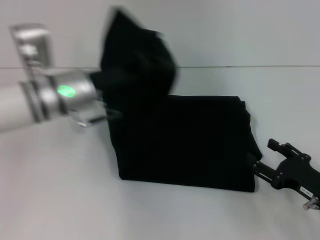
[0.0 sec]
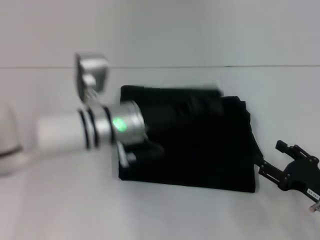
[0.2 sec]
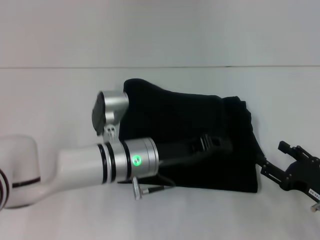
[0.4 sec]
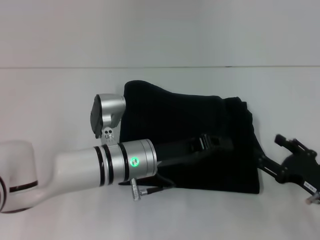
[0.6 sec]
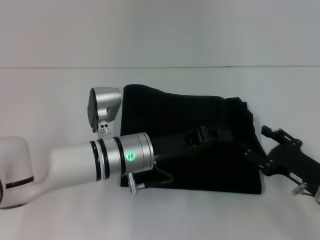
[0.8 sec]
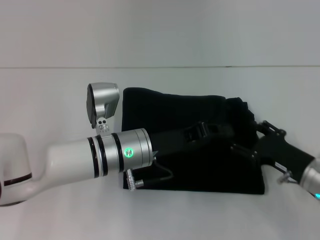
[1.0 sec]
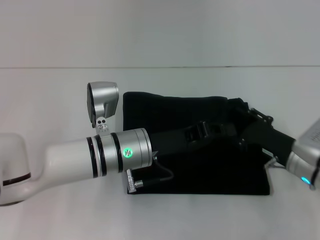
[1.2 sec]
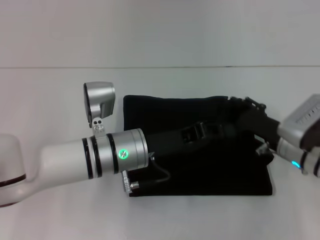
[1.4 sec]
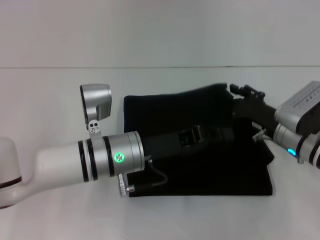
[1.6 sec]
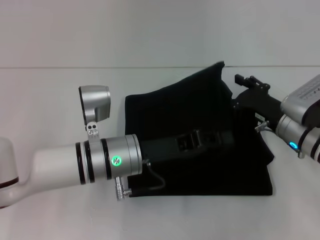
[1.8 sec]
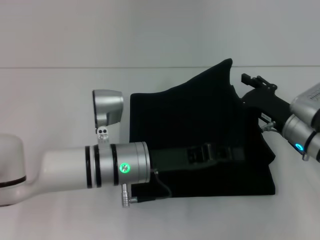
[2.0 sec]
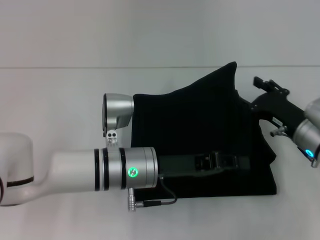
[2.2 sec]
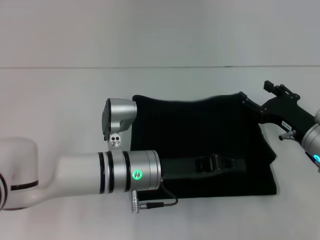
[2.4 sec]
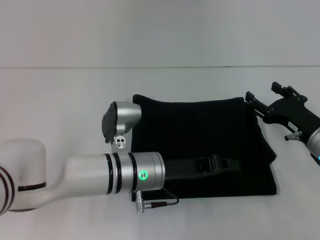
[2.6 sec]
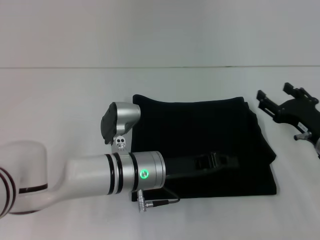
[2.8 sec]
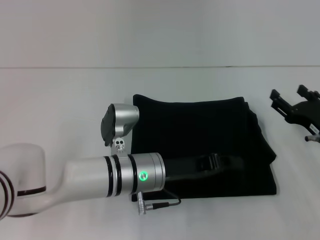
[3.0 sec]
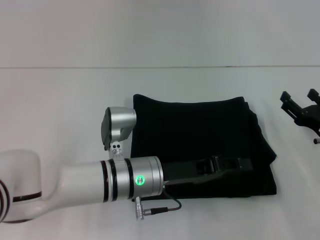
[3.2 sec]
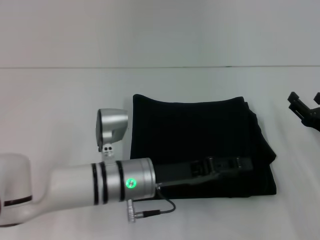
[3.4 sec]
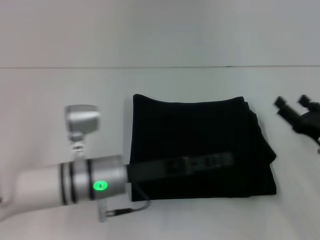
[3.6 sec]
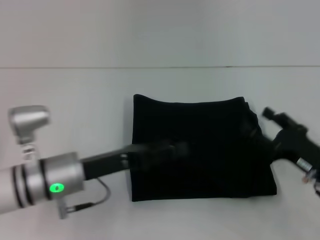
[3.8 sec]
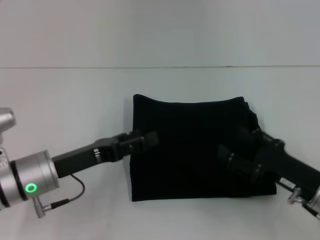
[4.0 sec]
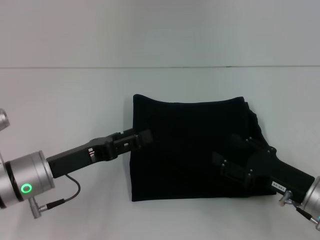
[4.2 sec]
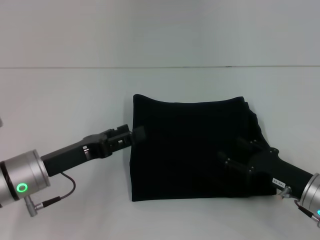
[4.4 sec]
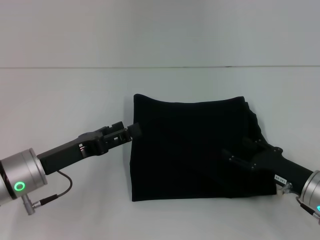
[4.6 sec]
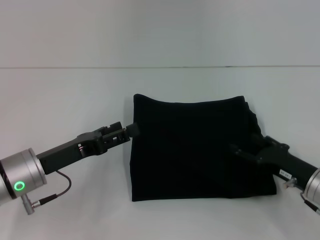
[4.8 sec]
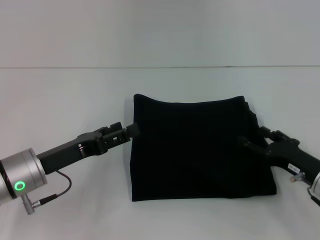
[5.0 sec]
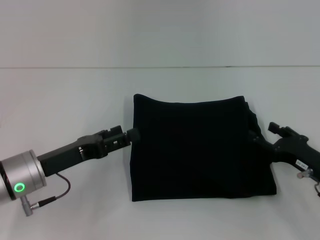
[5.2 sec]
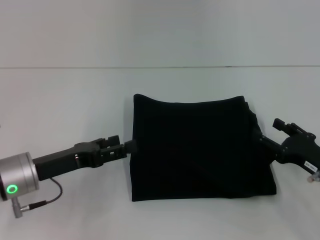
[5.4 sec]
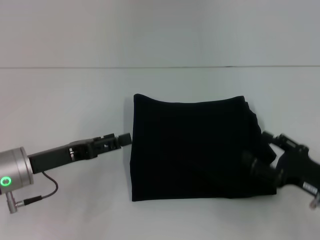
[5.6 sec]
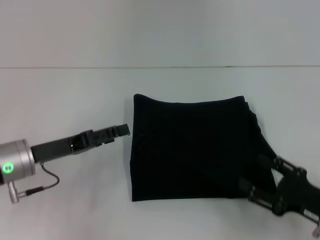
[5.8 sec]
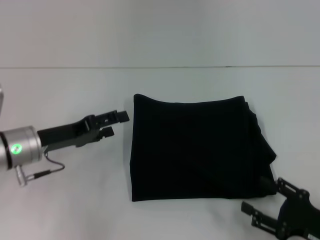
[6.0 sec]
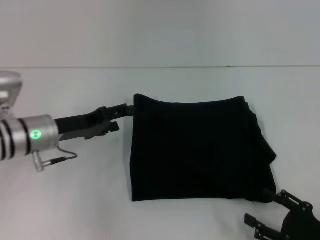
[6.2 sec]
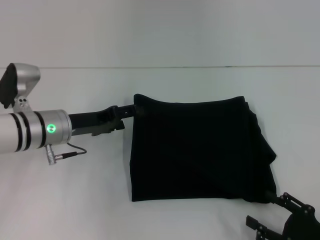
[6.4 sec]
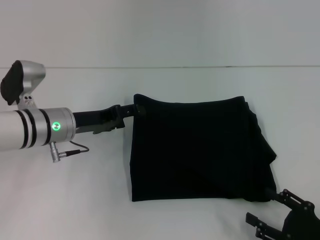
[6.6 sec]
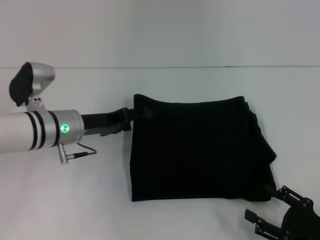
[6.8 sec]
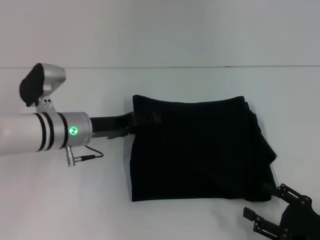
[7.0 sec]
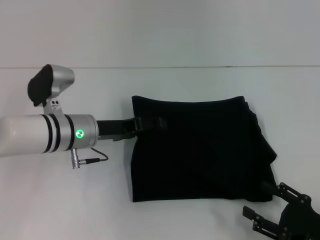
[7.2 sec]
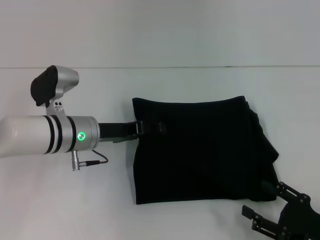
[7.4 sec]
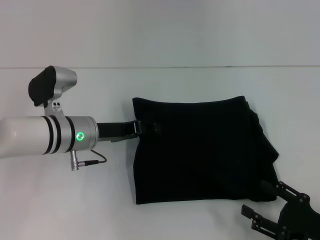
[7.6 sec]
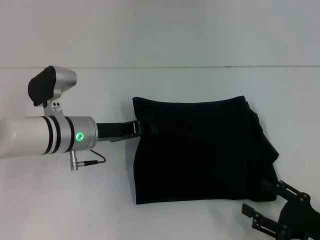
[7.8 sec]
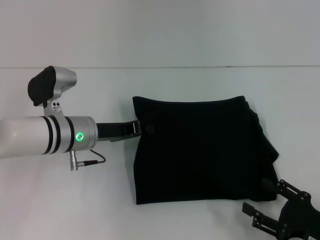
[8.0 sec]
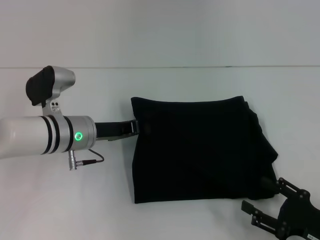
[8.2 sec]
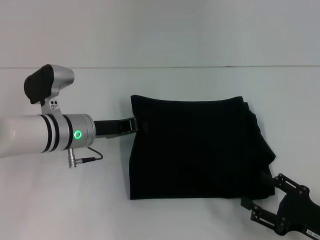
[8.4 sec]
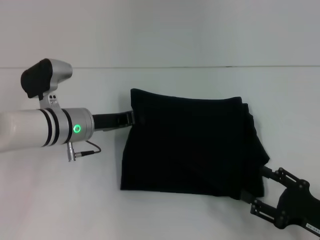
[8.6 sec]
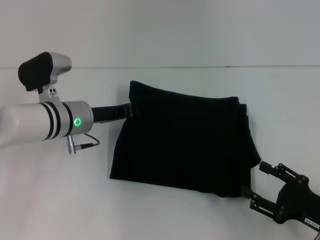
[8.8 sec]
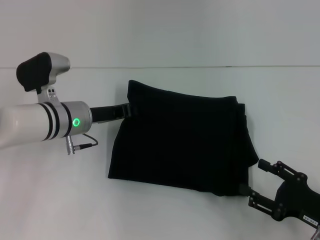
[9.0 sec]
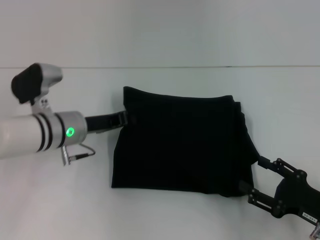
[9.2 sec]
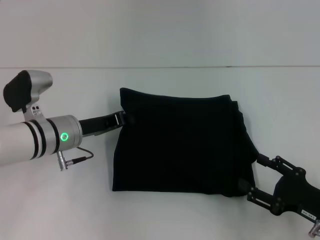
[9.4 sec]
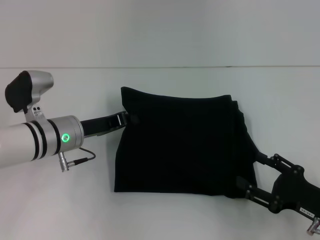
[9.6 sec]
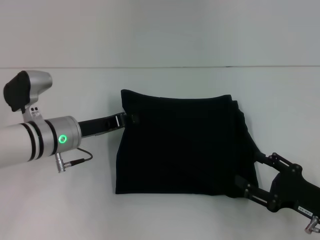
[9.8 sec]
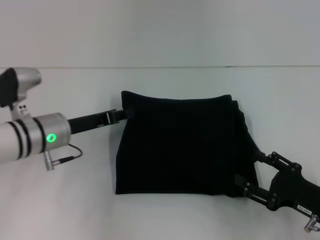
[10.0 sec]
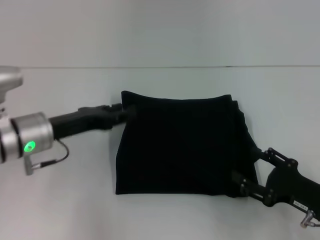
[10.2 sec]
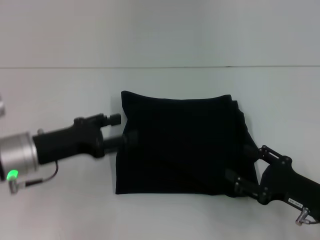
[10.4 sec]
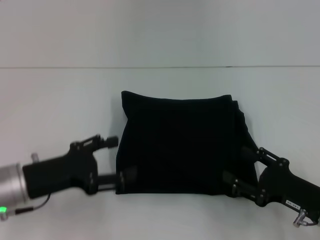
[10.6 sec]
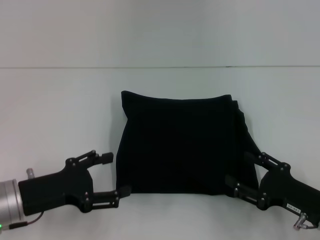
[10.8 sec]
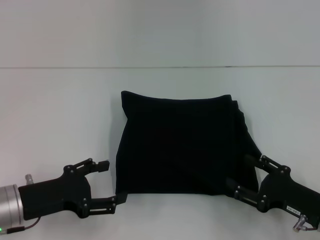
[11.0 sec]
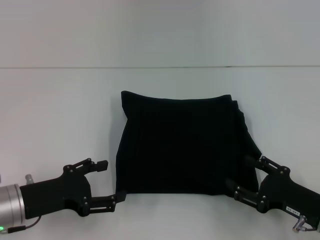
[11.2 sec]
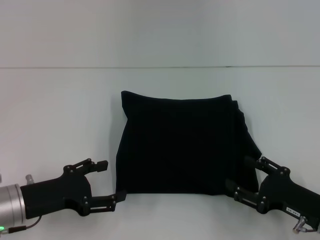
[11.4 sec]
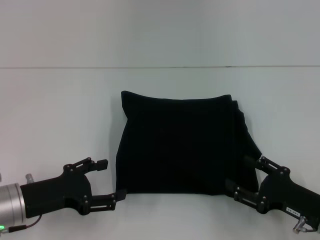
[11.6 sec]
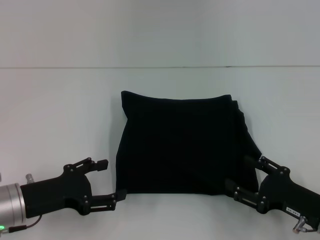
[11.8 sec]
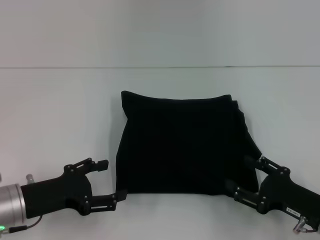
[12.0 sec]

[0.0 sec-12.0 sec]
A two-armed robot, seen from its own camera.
0.0 sec to 1.6 sec: The right gripper heads forward and to the left, covering some 15 cm. Meanwhile the left gripper is displaced to the right, downward and backward by approximately 10 cm.
1.6 sec to 3.0 sec: The right gripper heads to the right, covering about 5 cm.
3.0 sec to 4.4 sec: The left gripper heads to the left, covering about 15 cm, and opens up, while the right gripper heads backward, covering about 5 cm.
4.4 sec to 6.0 sec: The left gripper moves roughly 5 cm. Meanwhile the right gripper travels backward by roughly 10 cm.
6.0 sec to 7.6 sec: The left gripper goes about 10 cm to the right.
7.6 sec to 9.0 sec: The left gripper closes.
9.0 sec to 10.4 sec: The left gripper moves backward and to the left, about 10 cm, and opens up.
10.4 sec to 12.0 sec: The left gripper is displaced backward by some 5 cm.
